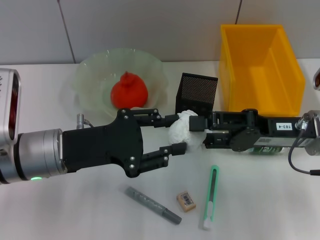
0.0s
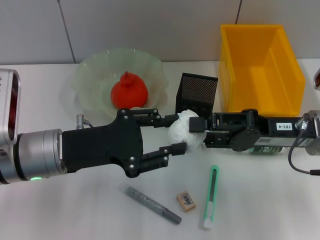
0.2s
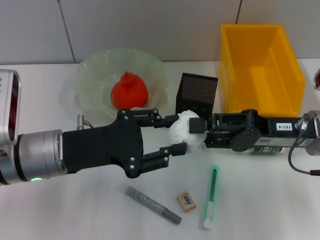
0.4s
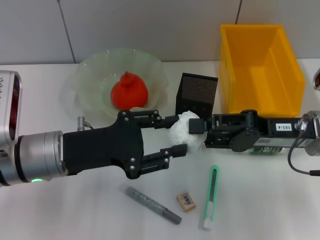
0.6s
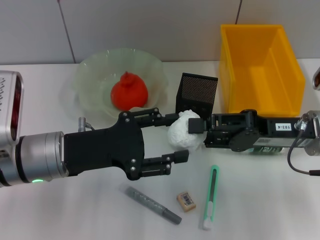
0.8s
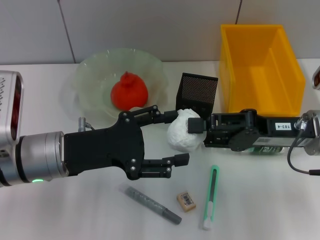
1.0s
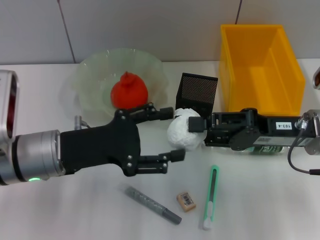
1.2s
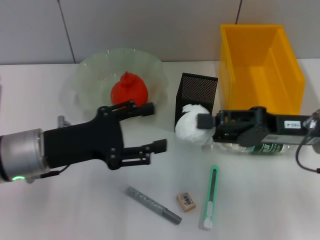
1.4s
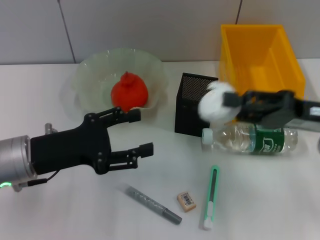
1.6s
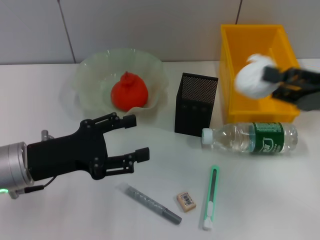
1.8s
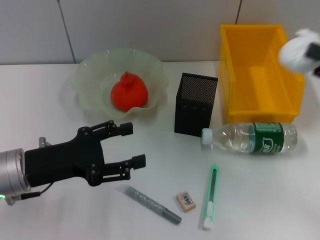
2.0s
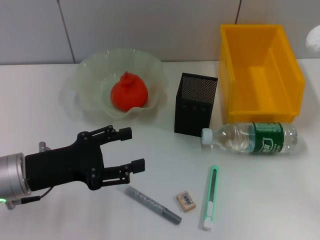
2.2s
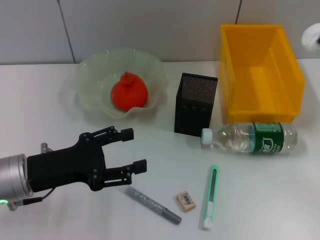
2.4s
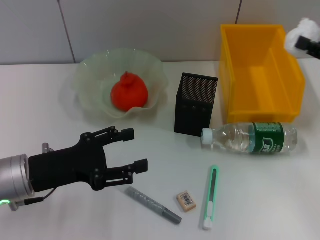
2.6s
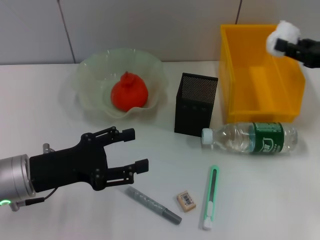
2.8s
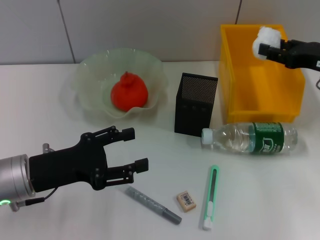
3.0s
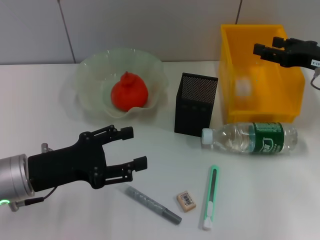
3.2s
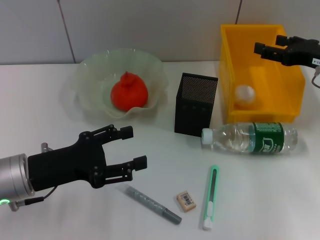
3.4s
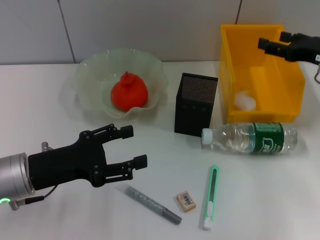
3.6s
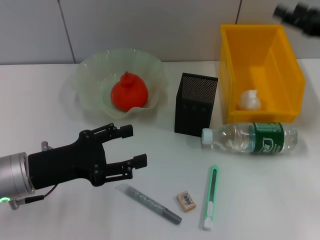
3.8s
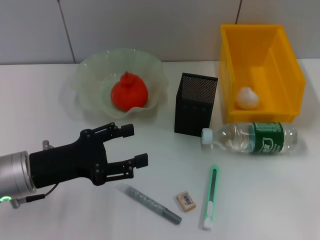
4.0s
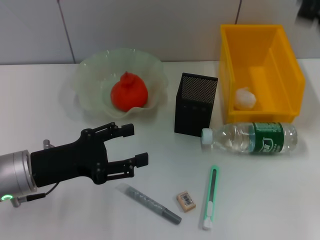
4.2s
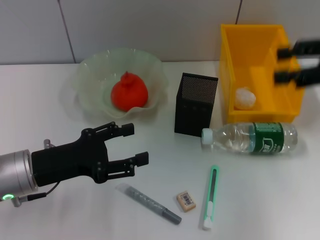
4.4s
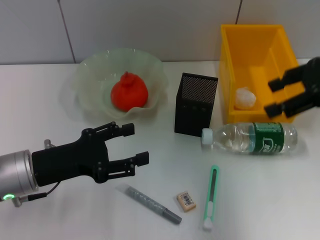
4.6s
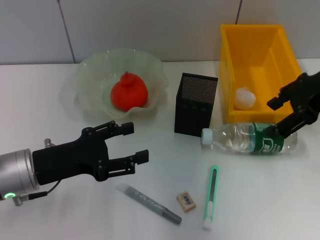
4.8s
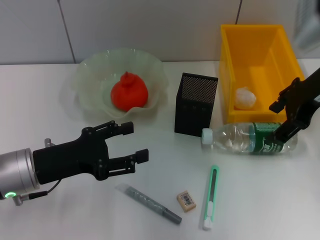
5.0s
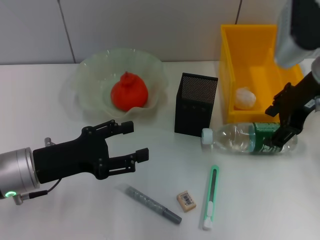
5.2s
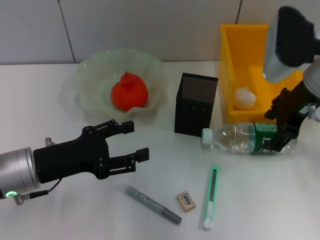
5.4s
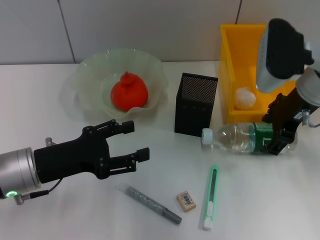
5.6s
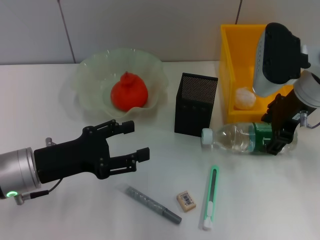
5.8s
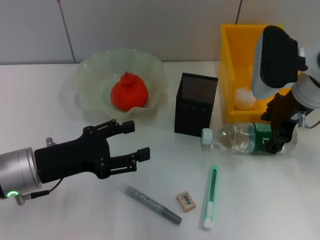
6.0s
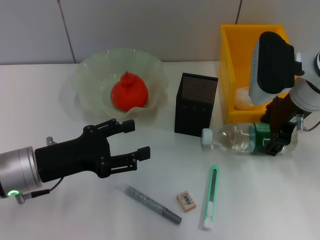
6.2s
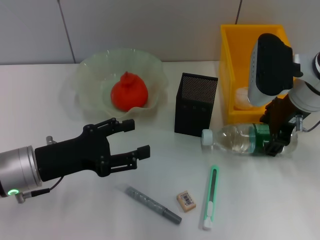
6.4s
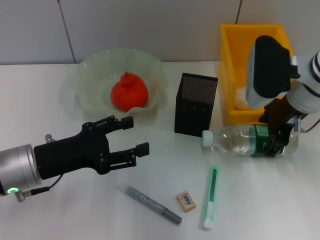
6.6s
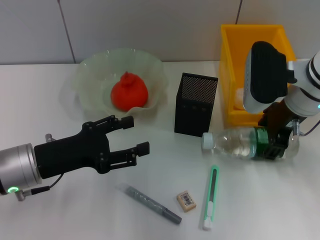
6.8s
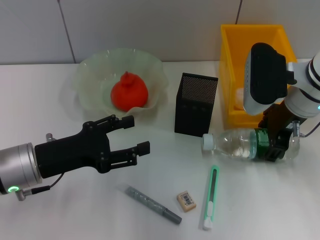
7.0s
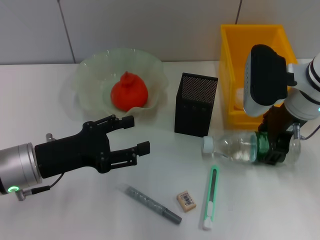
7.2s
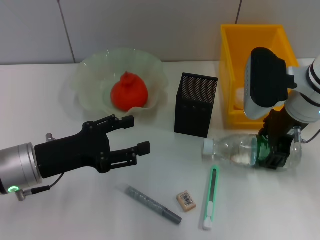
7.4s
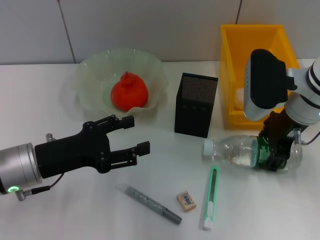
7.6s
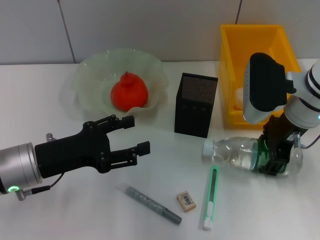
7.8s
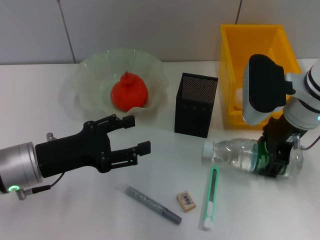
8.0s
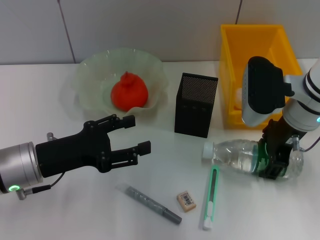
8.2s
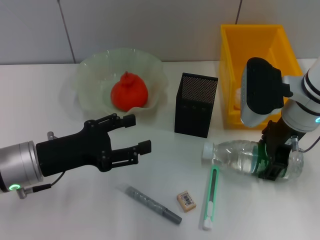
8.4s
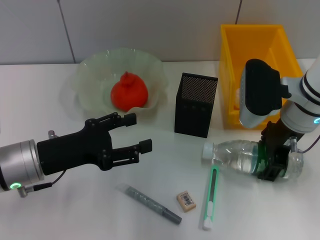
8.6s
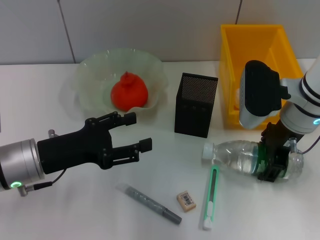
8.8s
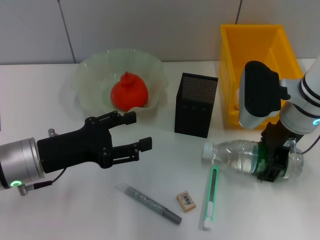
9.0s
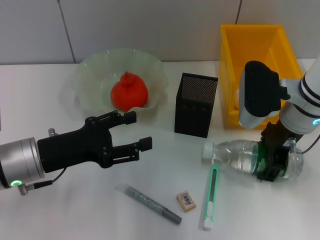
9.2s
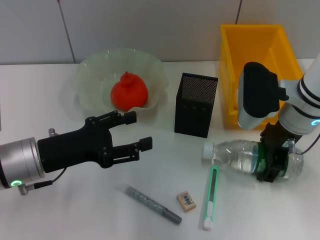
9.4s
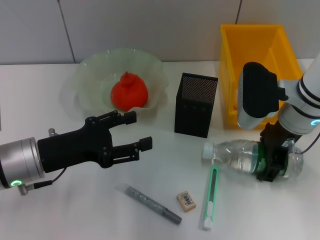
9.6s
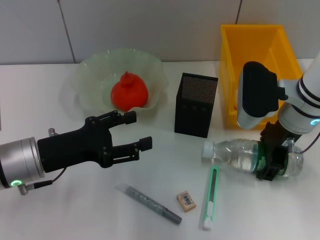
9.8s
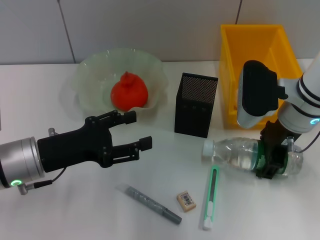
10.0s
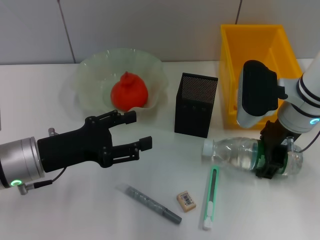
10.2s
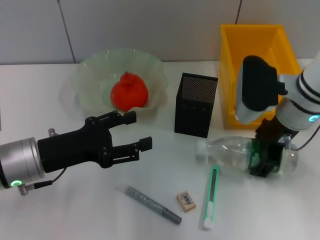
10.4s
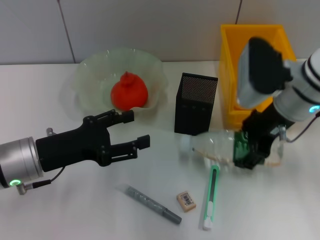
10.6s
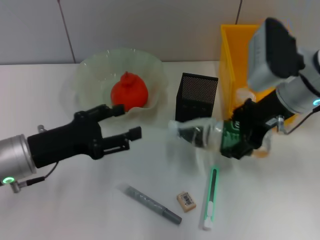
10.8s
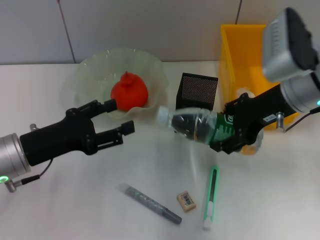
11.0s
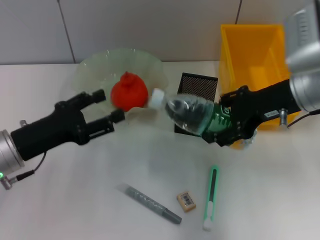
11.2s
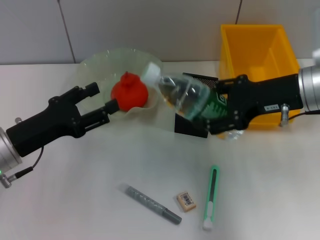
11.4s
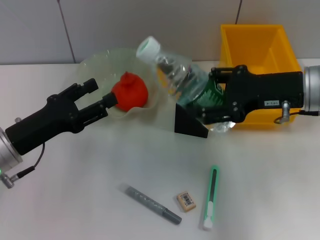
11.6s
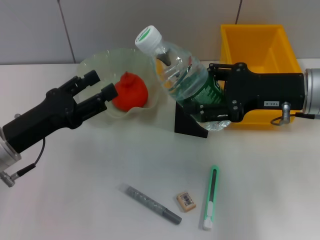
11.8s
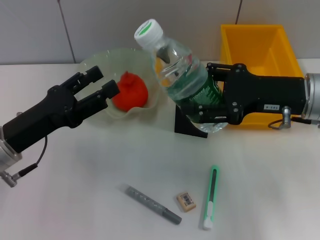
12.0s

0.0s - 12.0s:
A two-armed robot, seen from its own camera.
Step, 1.4s - 3.6s: Place the paper ball into the trash can with the right hand.
Step, 3.8s - 10.0s: Grab the water bottle with the right hand.
0.0s - 1.6s: The left gripper opens up, while the right gripper closes.
1.6s - 3.0s: The right gripper shifts some 10 cm forward.
3.0s - 4.4s: The right gripper moves upward, about 10 cm, and opens.
4.4s - 6.0s: The right gripper heads to the left and downward, covering approximately 15 cm.
6.0s - 9.0s: The grippers make only small movements.
9.0s - 10.4s: Neither gripper changes place.
10.4s - 12.0s: The right gripper ends up some 5 cm from where it was.

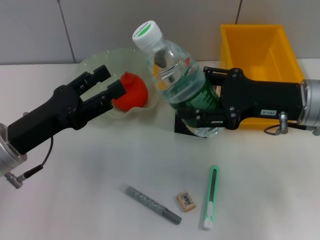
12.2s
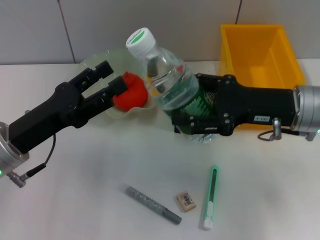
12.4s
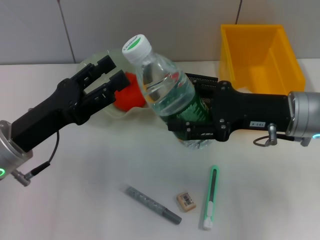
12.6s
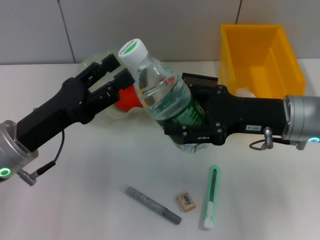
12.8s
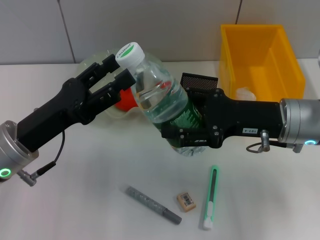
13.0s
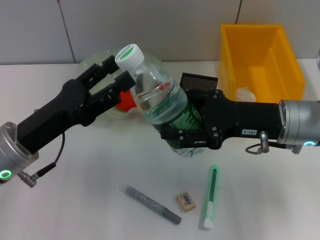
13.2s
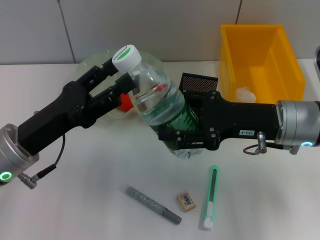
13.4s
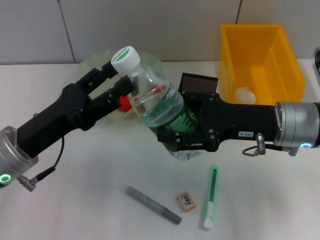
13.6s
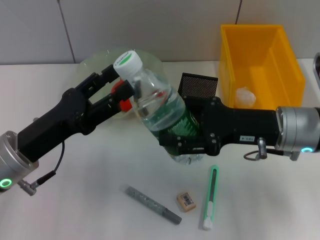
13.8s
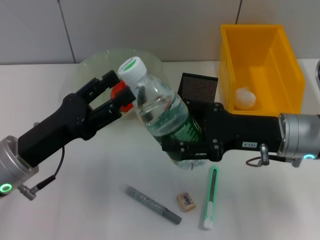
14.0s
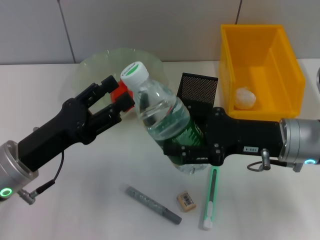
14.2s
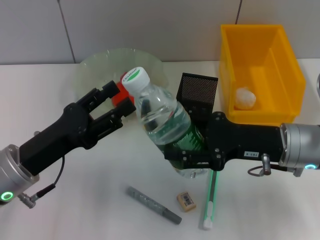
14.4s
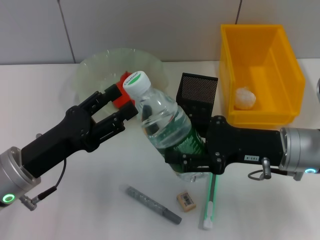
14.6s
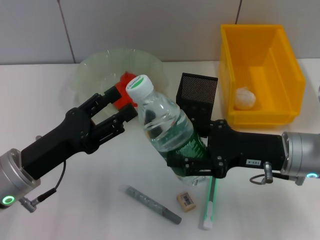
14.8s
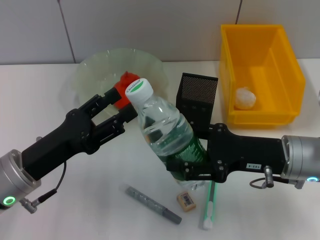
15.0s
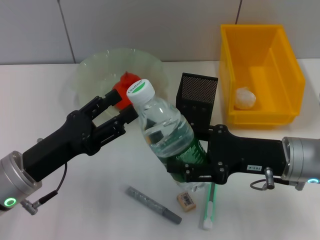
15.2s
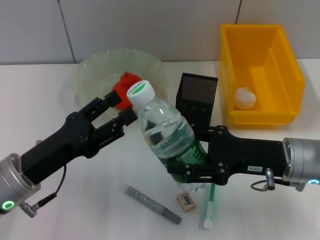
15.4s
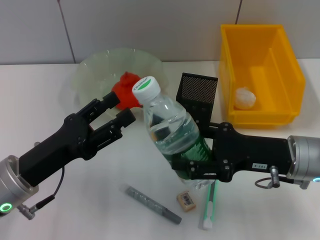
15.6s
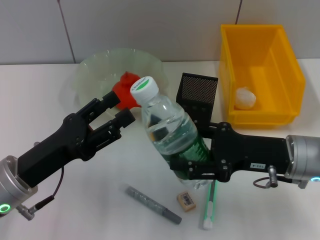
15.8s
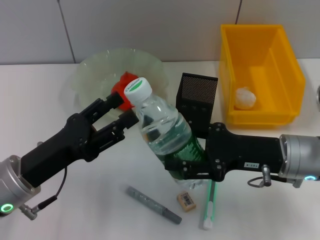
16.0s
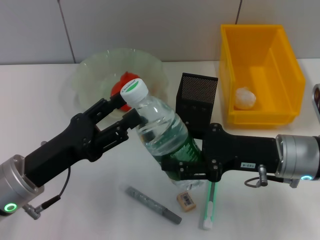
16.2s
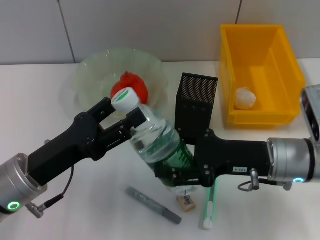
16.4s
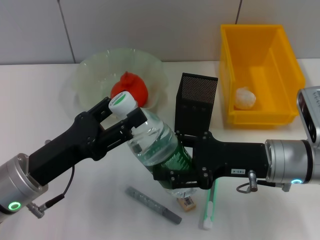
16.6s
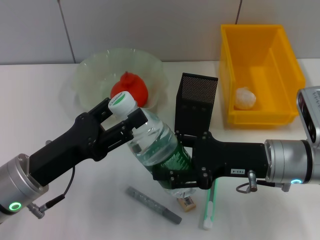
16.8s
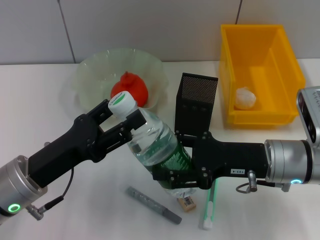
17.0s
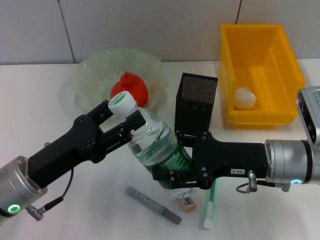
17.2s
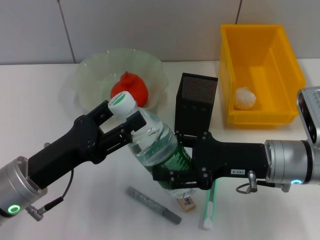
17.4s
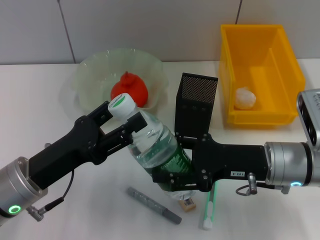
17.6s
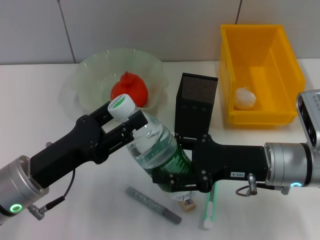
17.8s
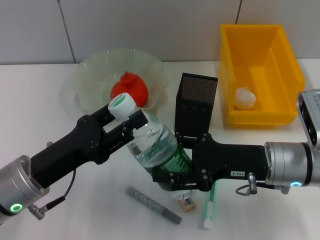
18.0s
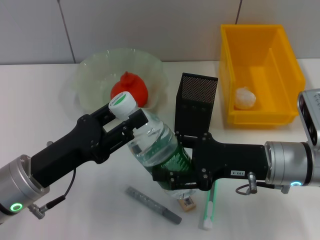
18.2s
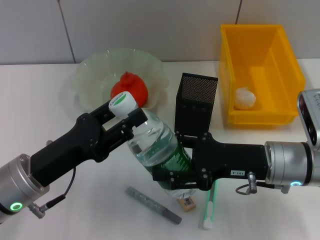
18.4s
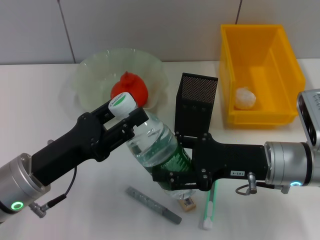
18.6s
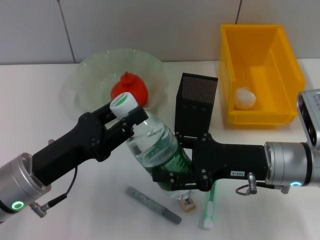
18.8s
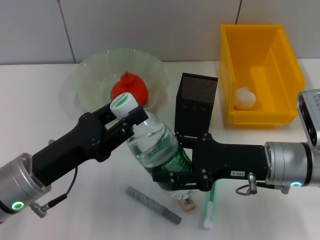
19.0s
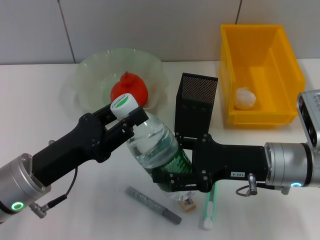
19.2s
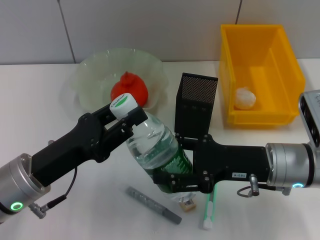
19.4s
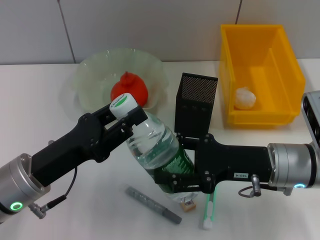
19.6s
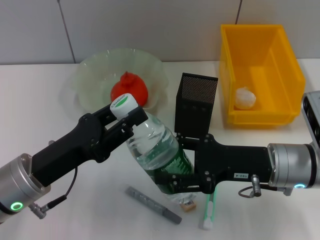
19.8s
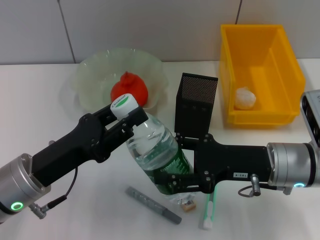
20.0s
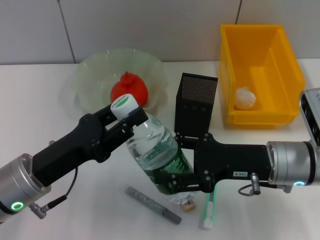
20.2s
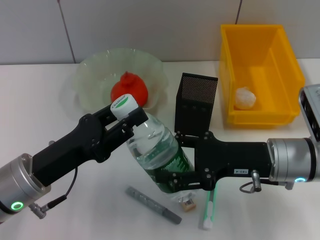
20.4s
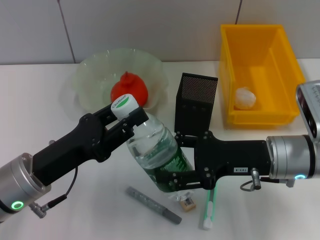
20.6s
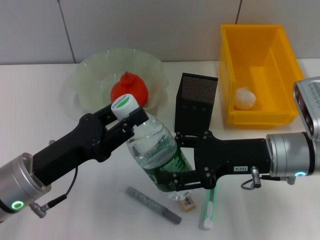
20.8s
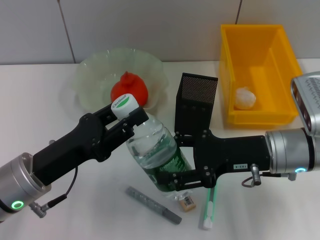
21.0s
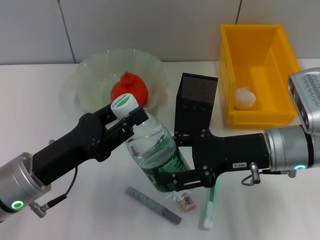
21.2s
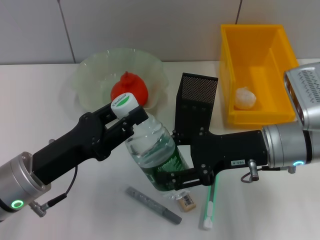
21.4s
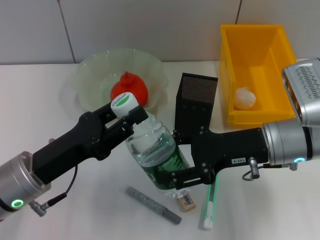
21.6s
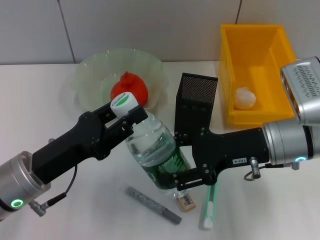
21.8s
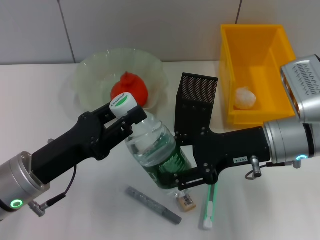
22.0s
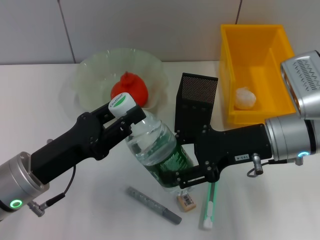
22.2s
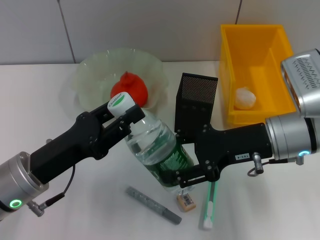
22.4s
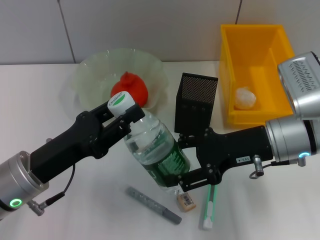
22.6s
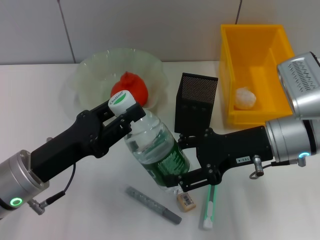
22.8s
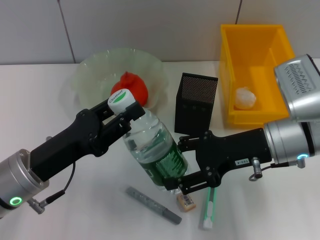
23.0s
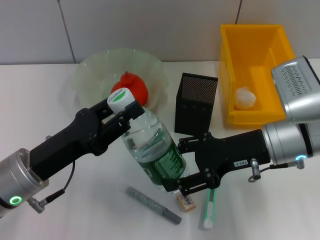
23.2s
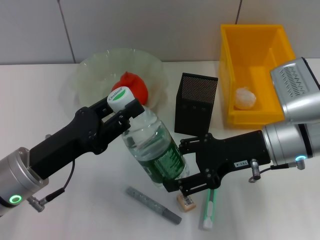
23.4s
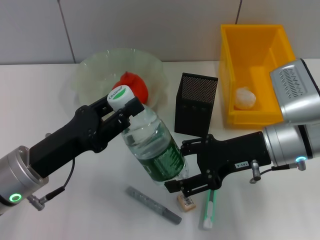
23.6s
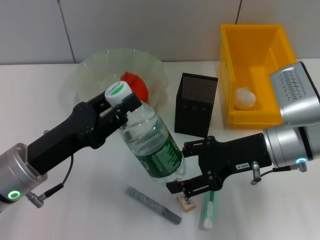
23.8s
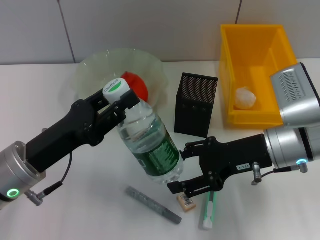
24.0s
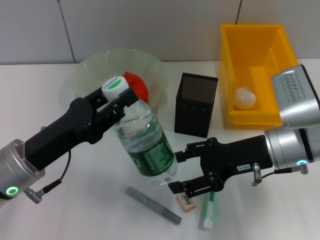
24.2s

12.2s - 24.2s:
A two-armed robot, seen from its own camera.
15.2s - 16.6s: The grippers stay close to where they were, moving slightly.
16.6s - 18.2s: Both grippers stay about where they are.
18.2s - 19.8s: The left gripper closes.
19.8s - 22.6s: The grippers make only small movements.
